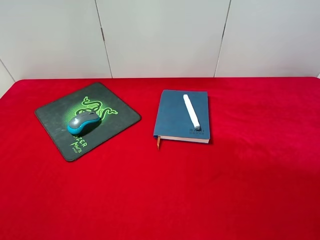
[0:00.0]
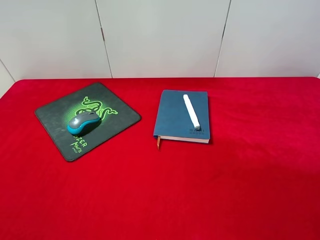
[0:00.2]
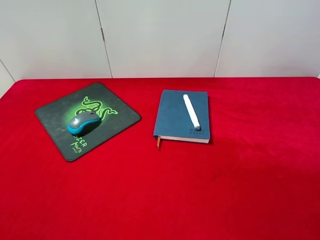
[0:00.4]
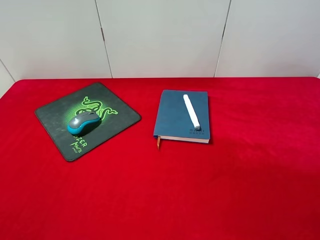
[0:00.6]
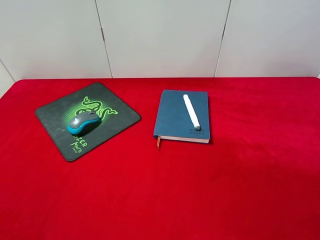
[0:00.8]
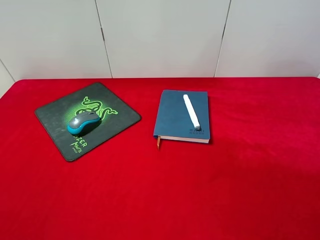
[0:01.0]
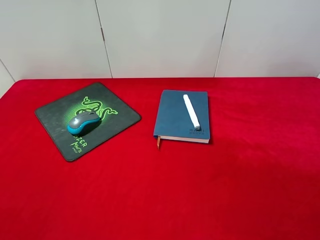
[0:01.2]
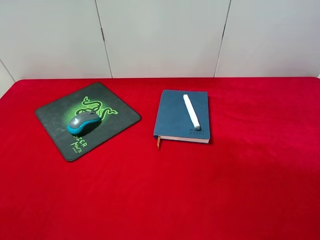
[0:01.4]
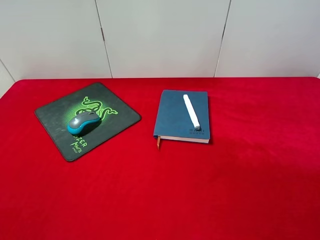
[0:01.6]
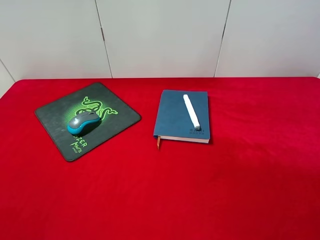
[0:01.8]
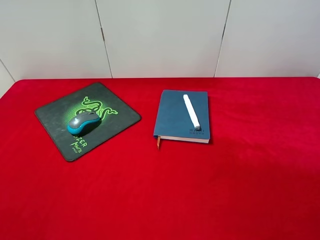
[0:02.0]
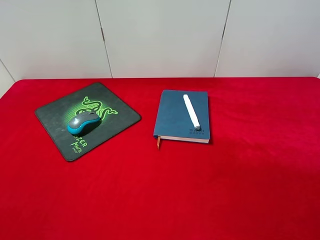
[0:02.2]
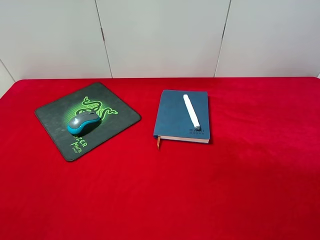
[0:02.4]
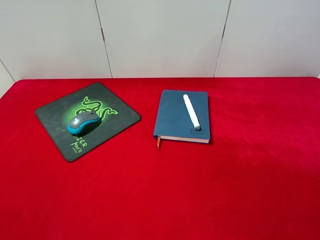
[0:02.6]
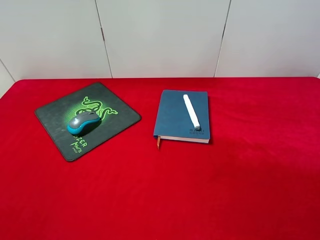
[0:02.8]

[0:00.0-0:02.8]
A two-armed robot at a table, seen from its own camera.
0:01.4 to 0:02.8: Both grippers stay put.
